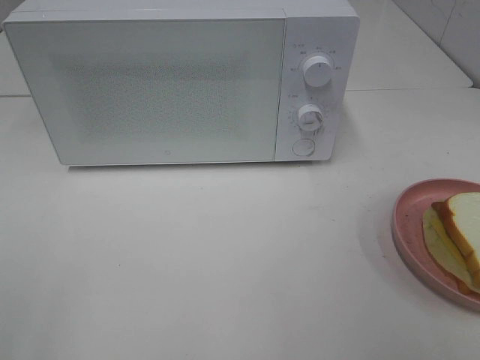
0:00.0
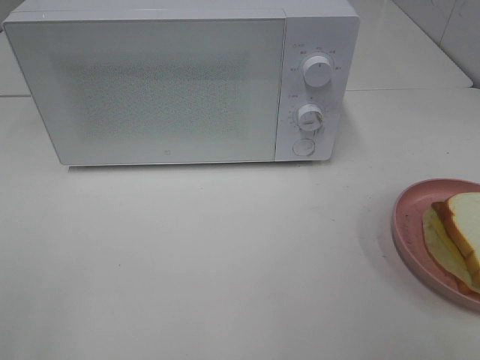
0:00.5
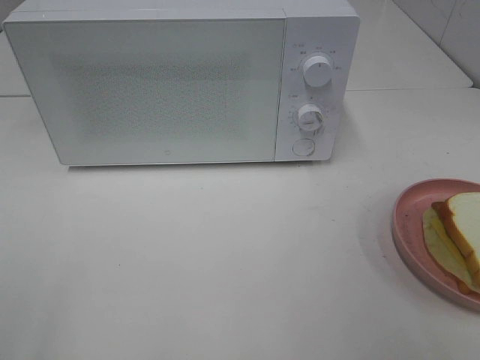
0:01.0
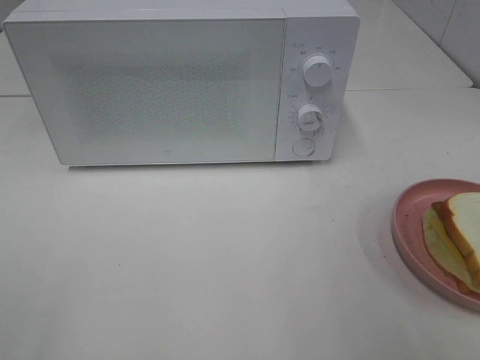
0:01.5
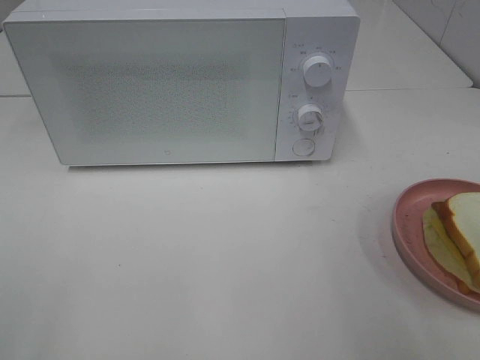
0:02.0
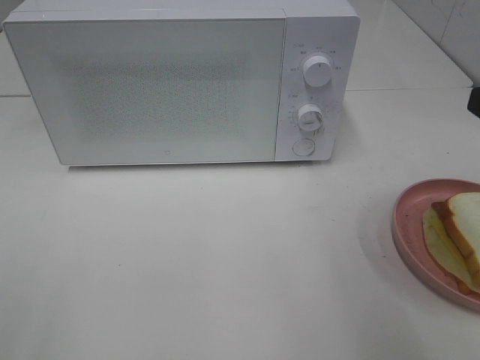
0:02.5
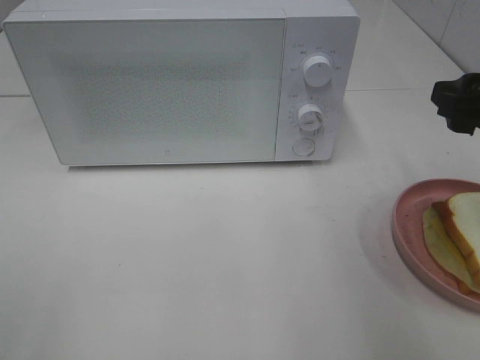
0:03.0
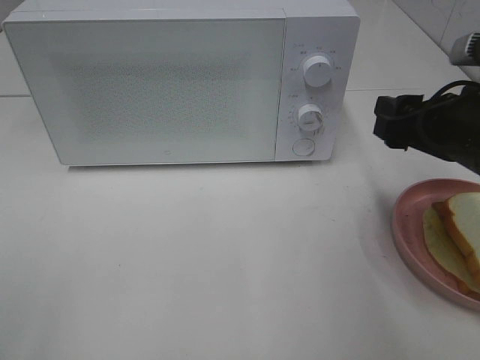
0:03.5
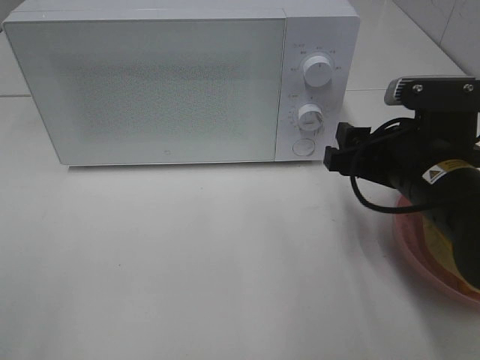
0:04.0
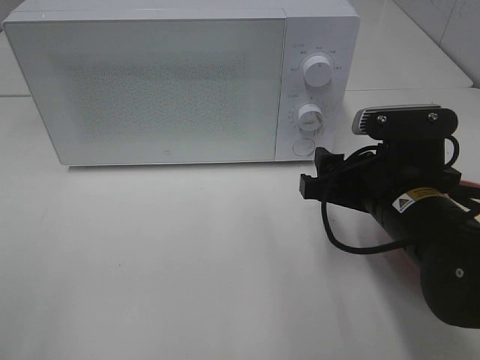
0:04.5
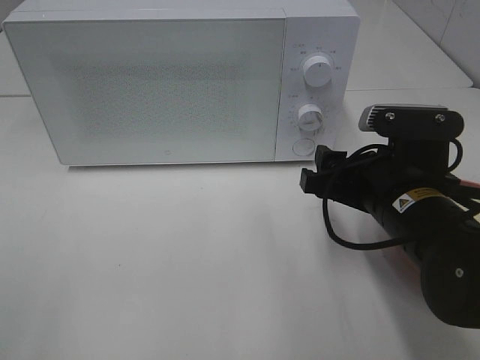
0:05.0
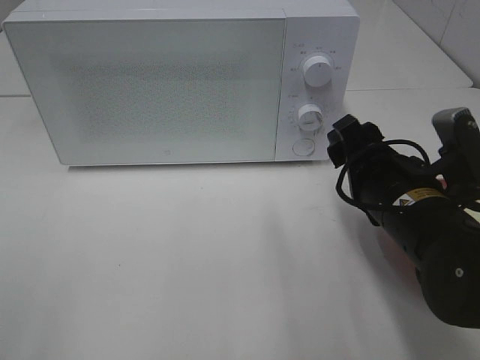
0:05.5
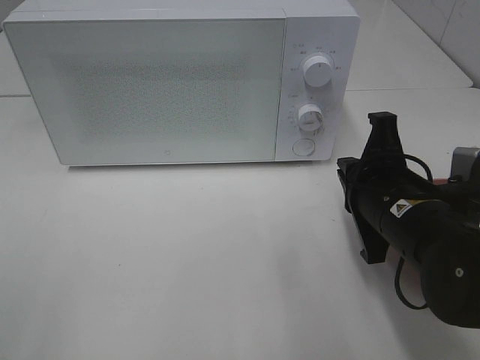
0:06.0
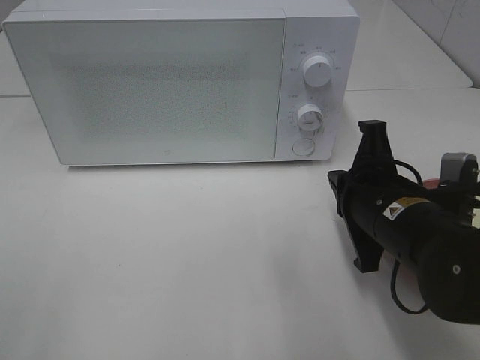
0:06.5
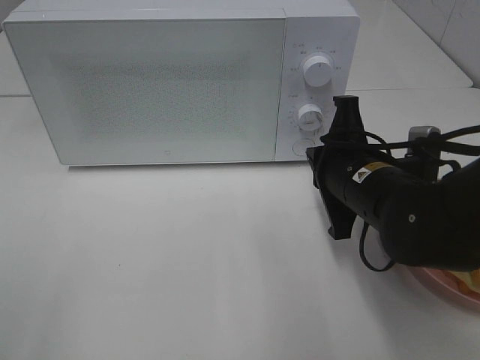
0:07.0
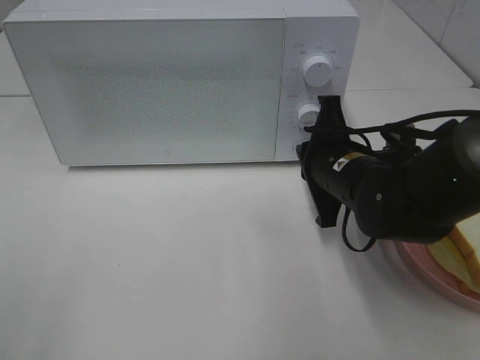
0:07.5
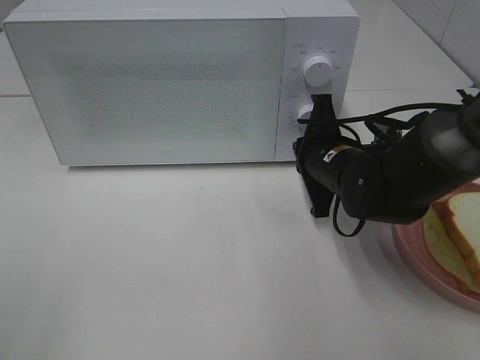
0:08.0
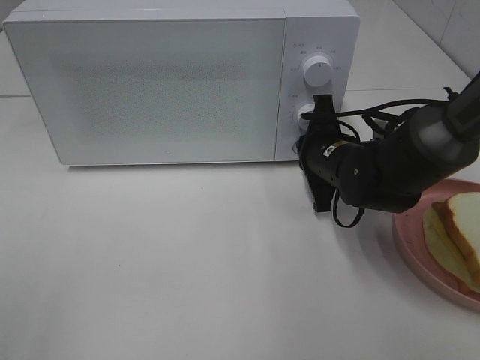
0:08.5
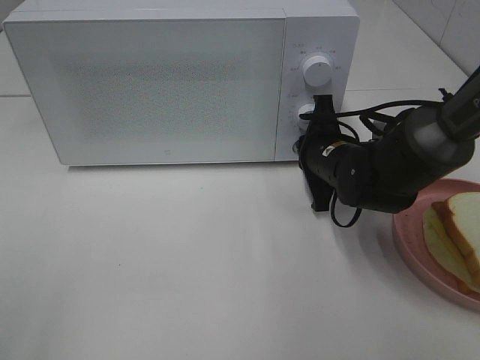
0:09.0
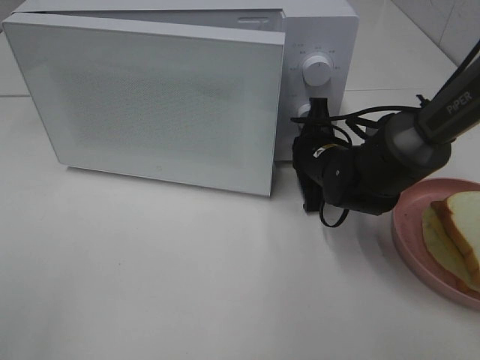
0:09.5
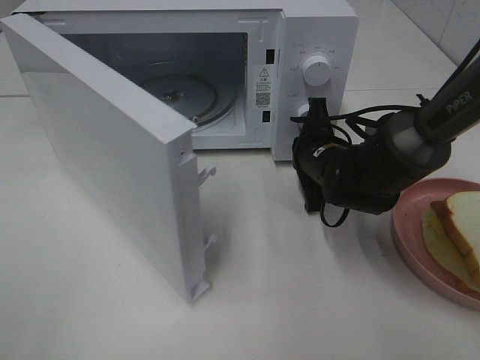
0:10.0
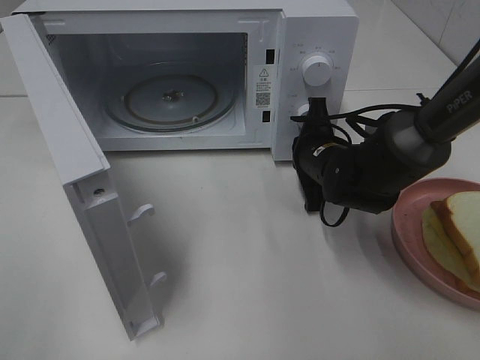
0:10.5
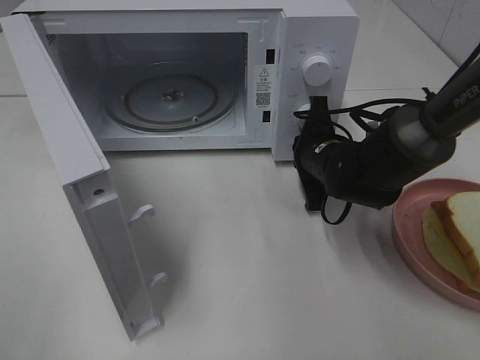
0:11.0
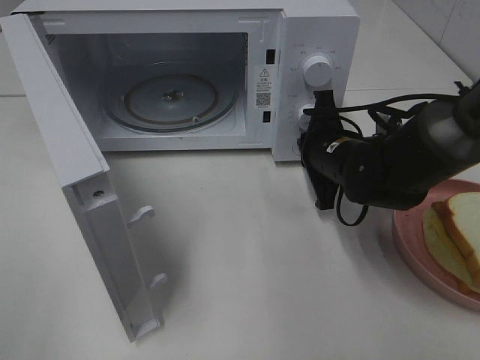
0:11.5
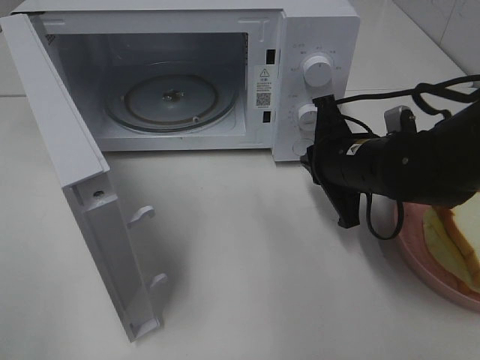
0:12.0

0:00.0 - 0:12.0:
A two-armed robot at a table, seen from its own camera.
Task of the whole recording: Heat Sandwich.
Step, 0:00.0 - 0:11.5: Right hand: press the switch.
0:02.0 - 0:04.0: The right gripper travels downward, forward and to the left by roughly 20 cm.
0:04.0 - 0:06.0: The right gripper closes up.
0:06.0 - 0:08.0: The right gripper travels forward by approximately 10 cm.
0:10.0 - 0:12.0: The right gripper travels backward by approximately 5 cm.

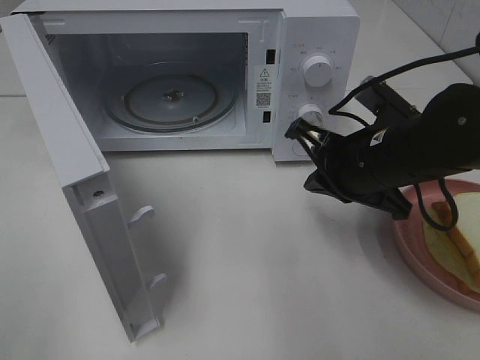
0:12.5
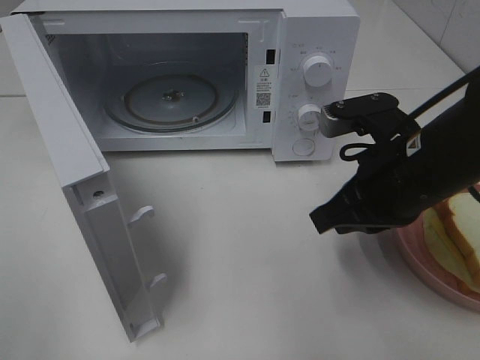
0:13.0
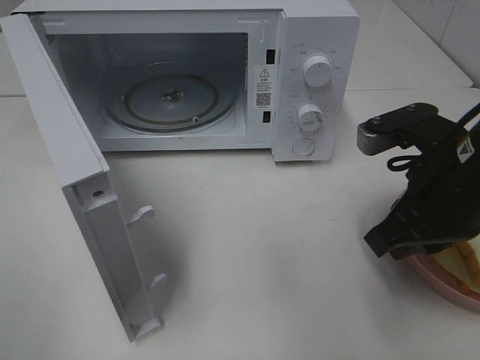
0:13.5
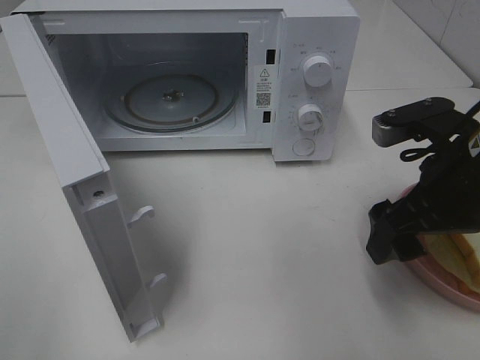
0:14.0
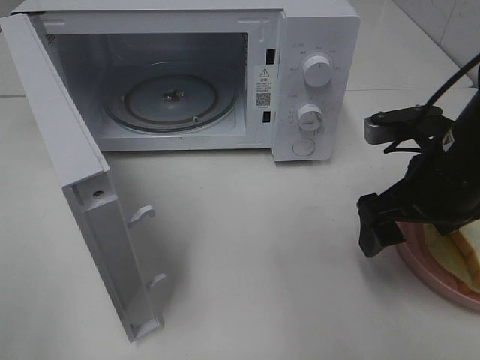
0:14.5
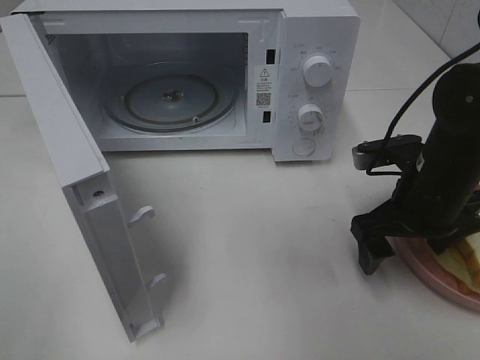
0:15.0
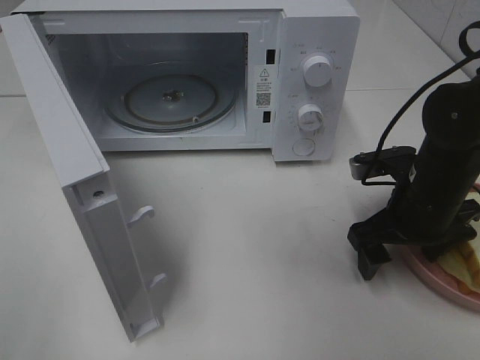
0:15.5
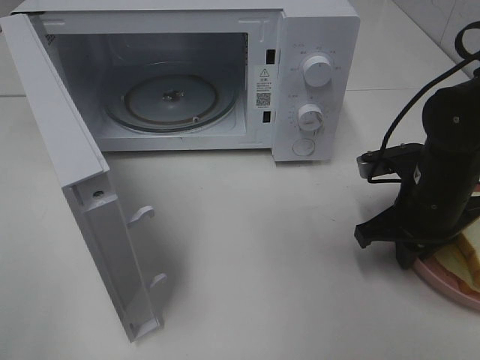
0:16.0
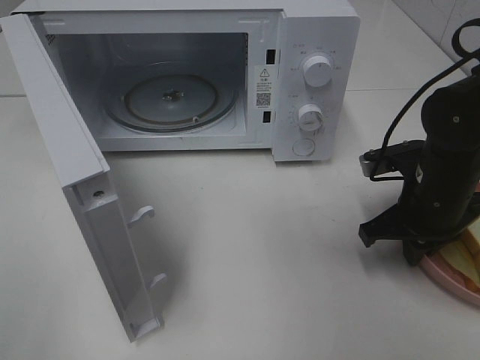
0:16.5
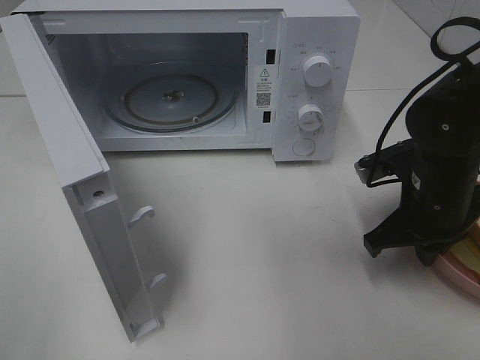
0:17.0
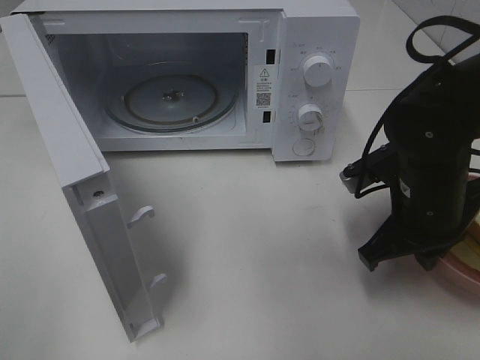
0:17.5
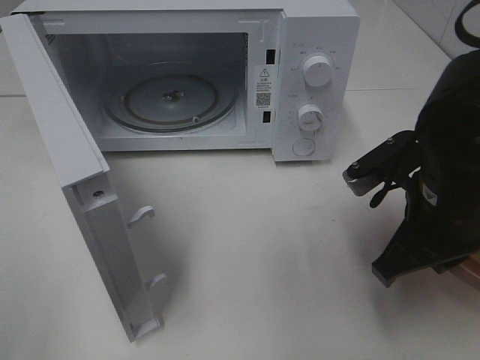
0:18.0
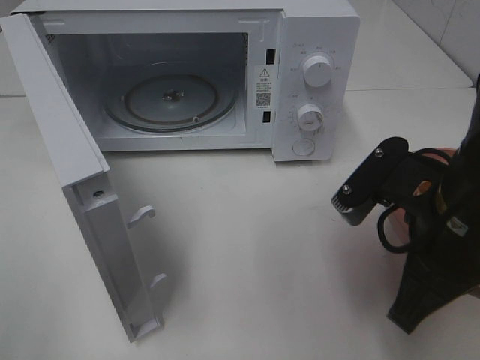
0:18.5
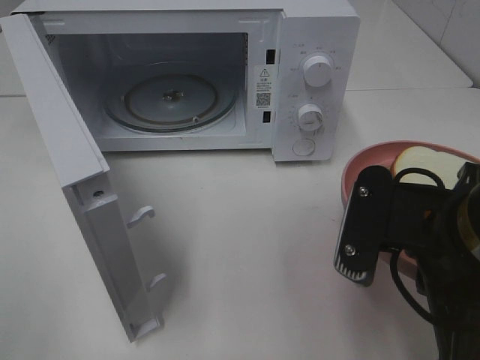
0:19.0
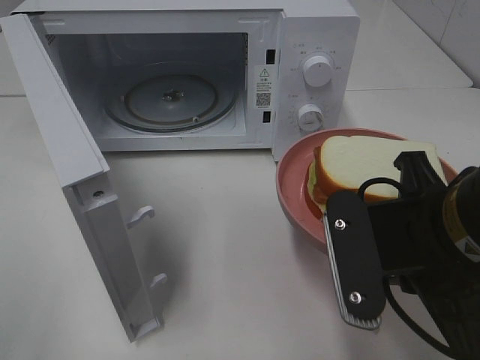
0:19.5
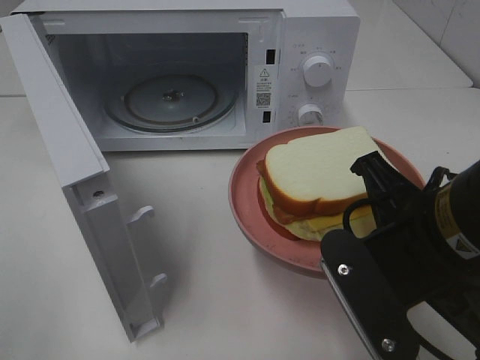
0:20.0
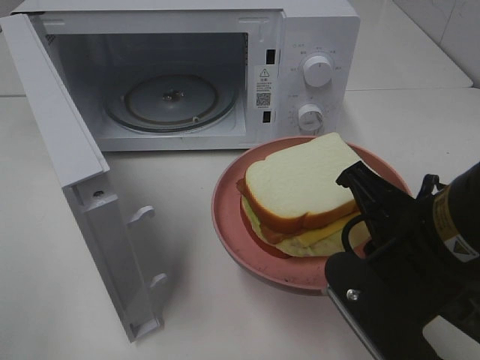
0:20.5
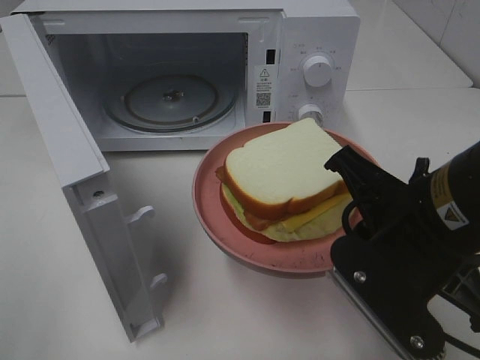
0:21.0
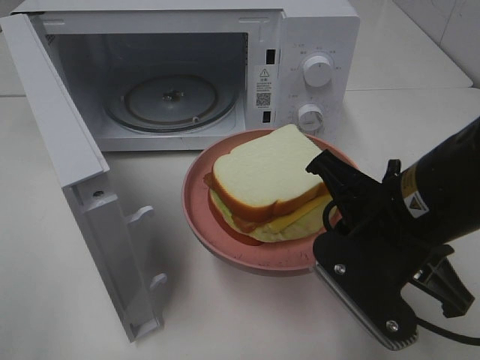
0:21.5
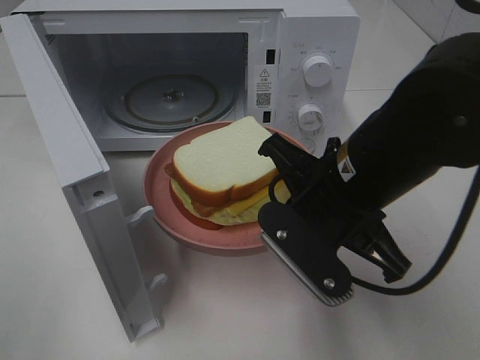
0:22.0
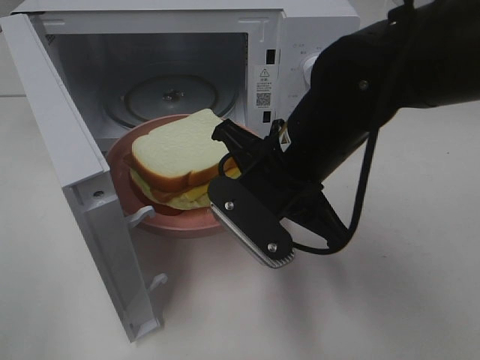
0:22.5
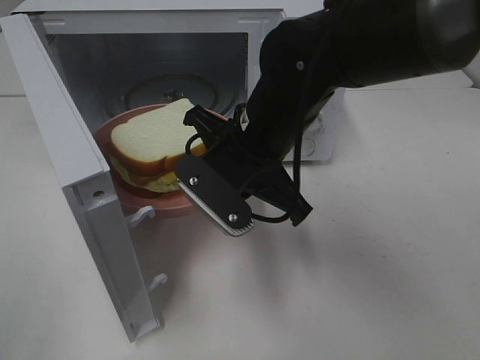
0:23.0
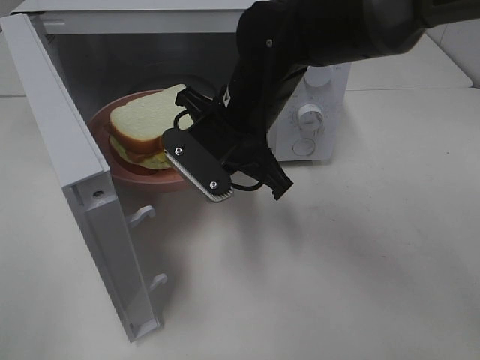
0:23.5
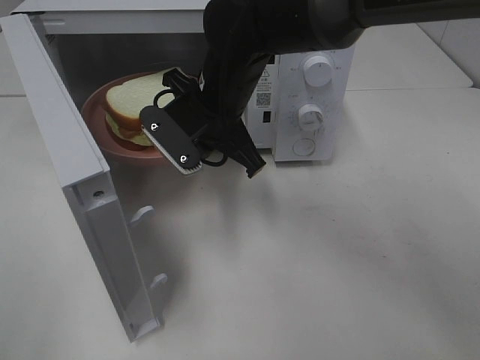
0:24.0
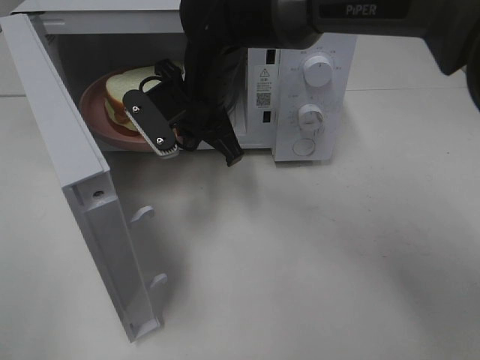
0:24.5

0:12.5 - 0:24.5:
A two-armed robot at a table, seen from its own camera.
Task of the whole recording: Heat Sandwich.
Step, 0:12.5 - 0:16.0: Right hand: grab the plate with the sandwich.
0:12.5 - 0:14.5: The right gripper heads to the right, covering some 5 cm, and opens its fingers.
0:14.5 - 0:16.5: The right gripper shifts about 5 cm downward, and closes.
0:16.5 - 0:18.5: The right gripper travels backward, upward and to the left by roughly 15 cm.
0:20.5 - 0:22.5: The right gripper heads forward and to the left, covering roughly 15 cm.
0:22.5 - 0:24.5: The right gripper heads forward and to the left, covering about 15 cm.

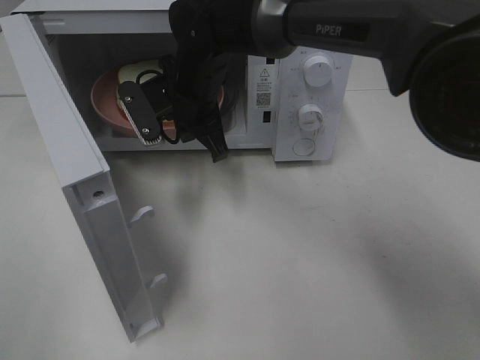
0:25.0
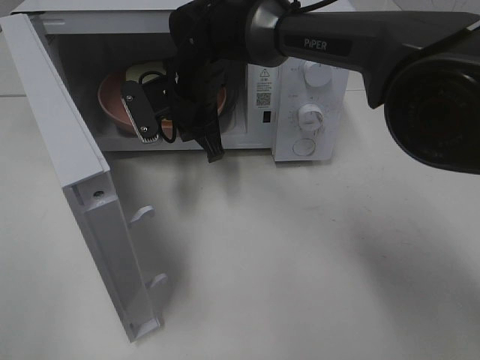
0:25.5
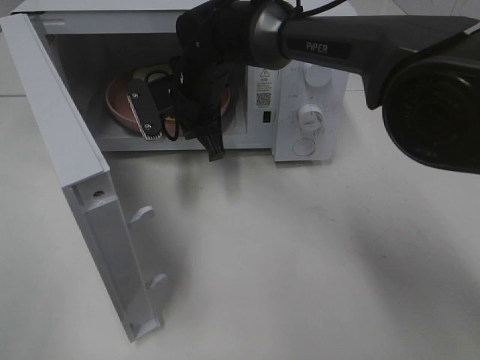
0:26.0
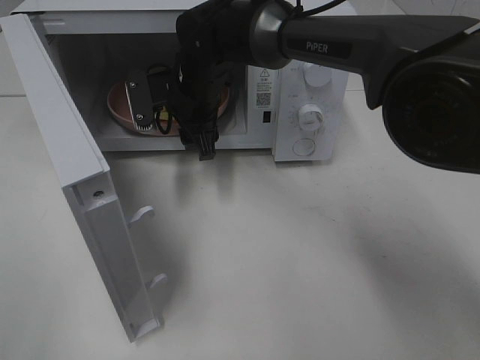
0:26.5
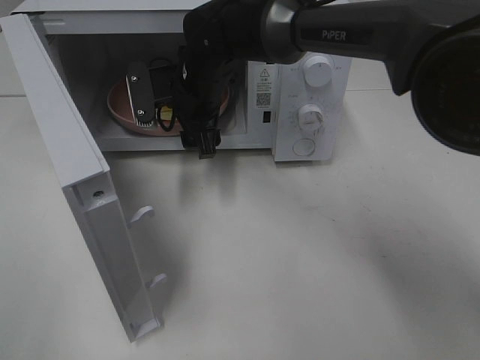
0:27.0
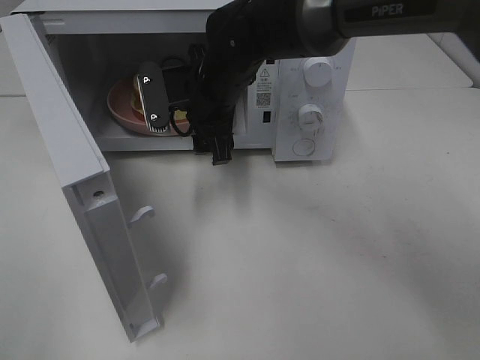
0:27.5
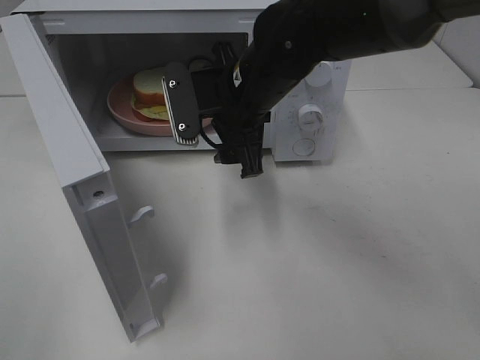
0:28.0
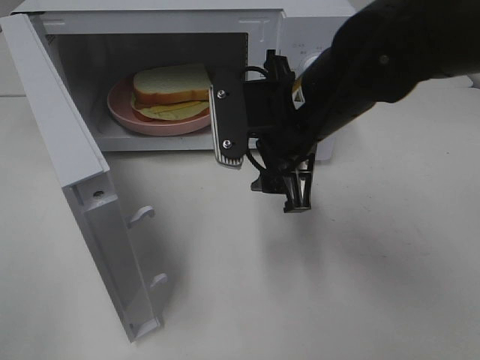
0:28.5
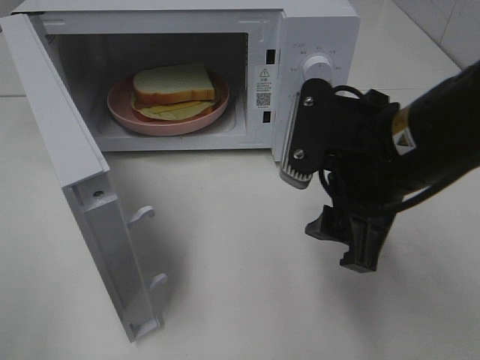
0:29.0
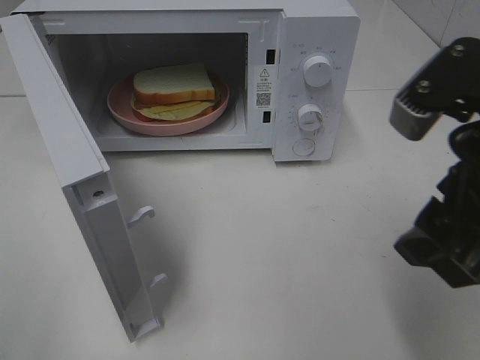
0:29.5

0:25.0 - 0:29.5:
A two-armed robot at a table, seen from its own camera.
Task of the whole recording: Heat Sandwich.
Step, 0:25.0 - 0:27.0: Right hand: place the plate in the microwave.
0:25.0 - 0:27.0: The right gripper opens its fingers.
0:27.0 - 0:29.5: The right gripper goes approximately 35 cm backward, to the right and upward.
